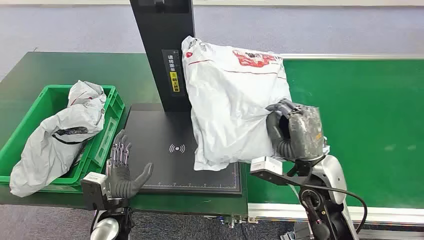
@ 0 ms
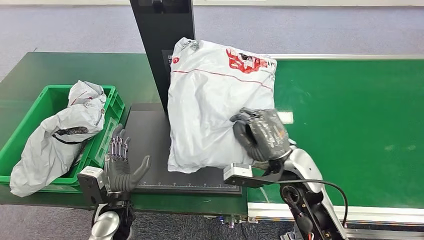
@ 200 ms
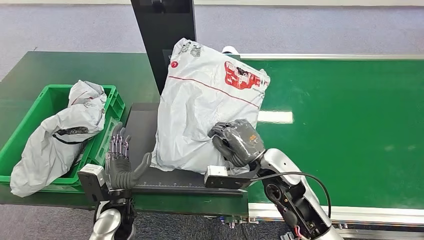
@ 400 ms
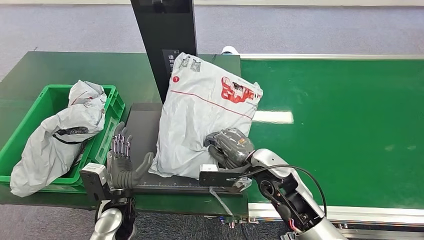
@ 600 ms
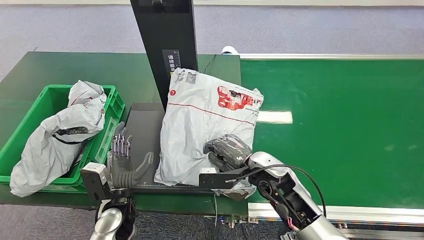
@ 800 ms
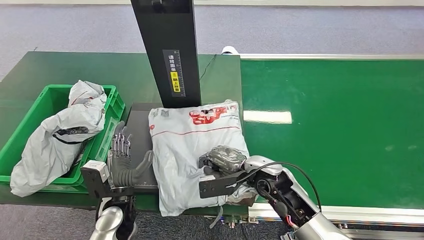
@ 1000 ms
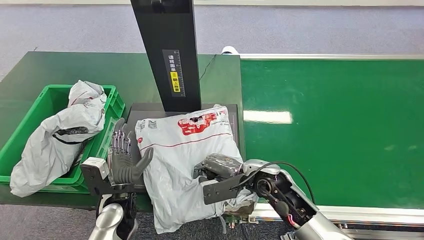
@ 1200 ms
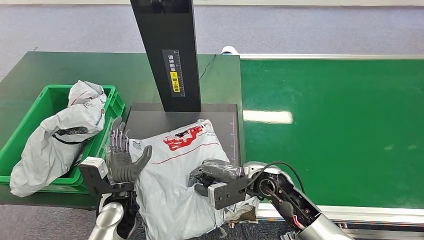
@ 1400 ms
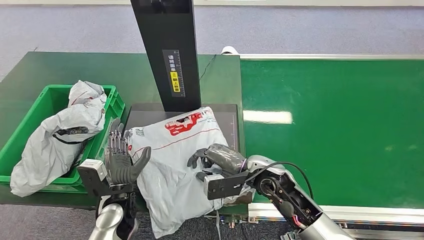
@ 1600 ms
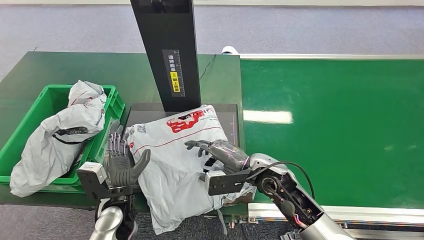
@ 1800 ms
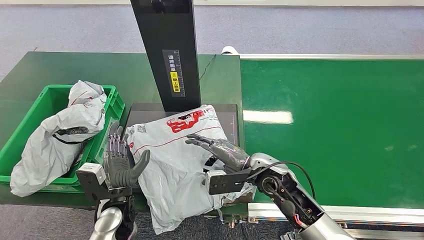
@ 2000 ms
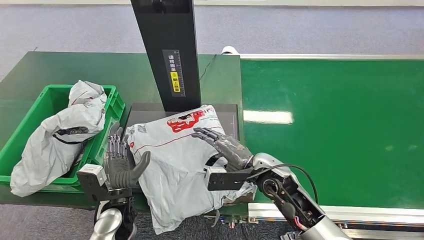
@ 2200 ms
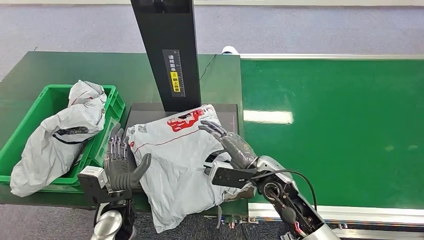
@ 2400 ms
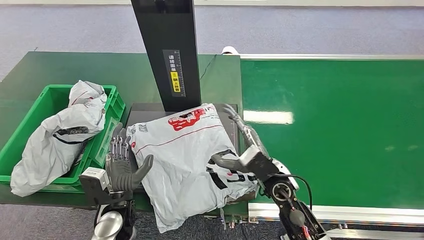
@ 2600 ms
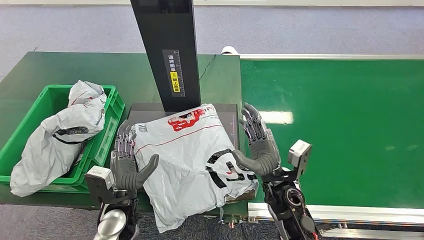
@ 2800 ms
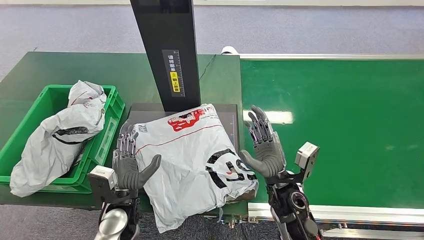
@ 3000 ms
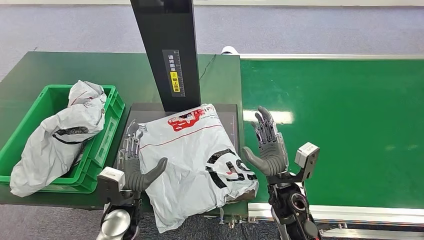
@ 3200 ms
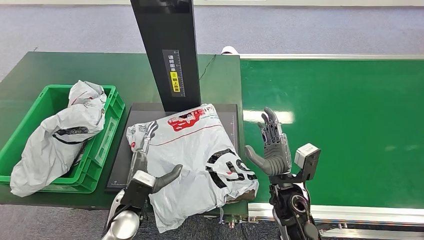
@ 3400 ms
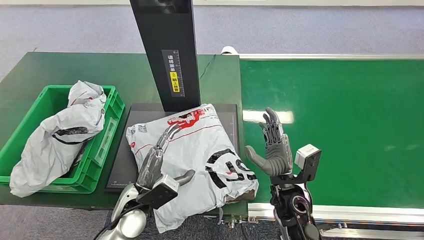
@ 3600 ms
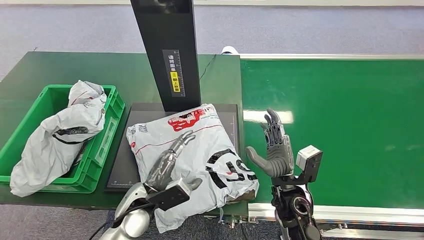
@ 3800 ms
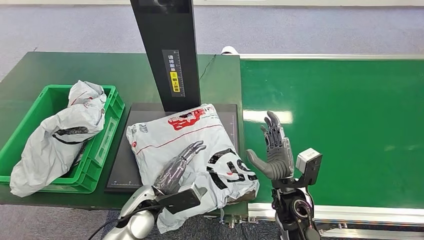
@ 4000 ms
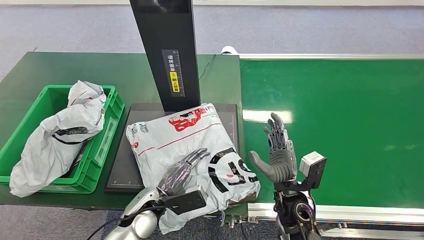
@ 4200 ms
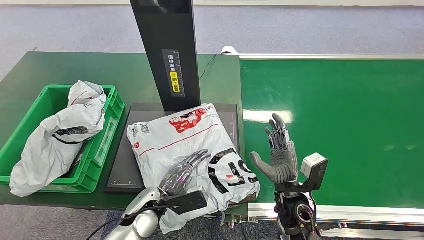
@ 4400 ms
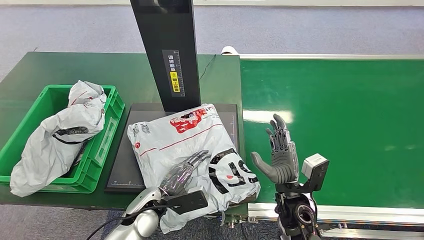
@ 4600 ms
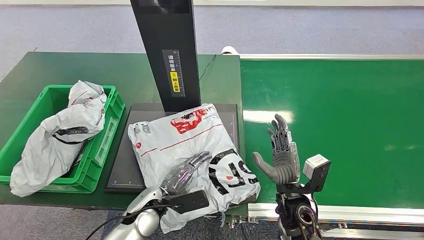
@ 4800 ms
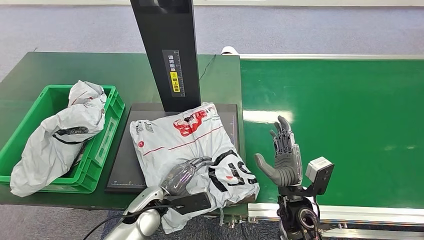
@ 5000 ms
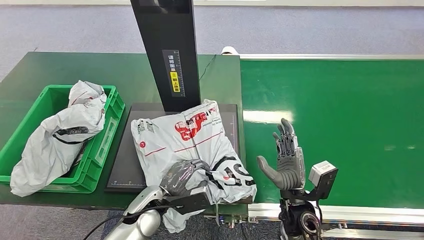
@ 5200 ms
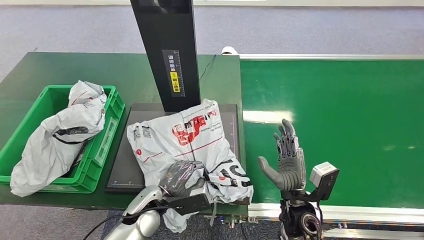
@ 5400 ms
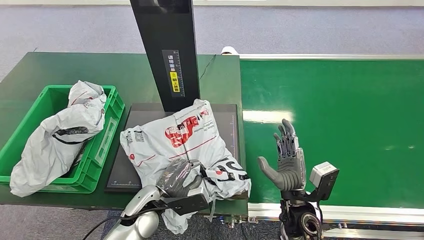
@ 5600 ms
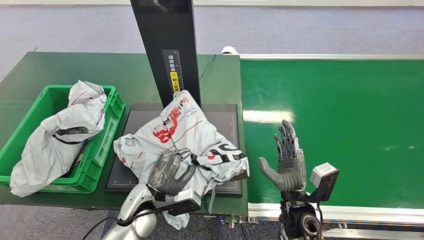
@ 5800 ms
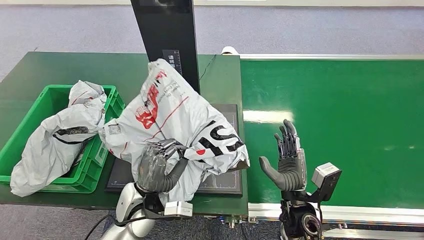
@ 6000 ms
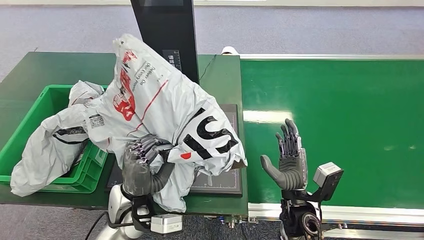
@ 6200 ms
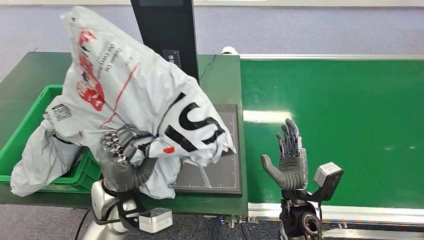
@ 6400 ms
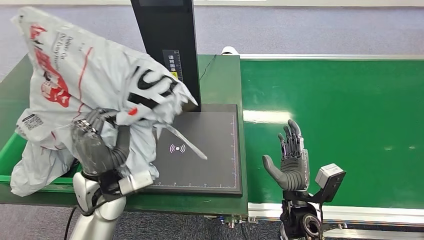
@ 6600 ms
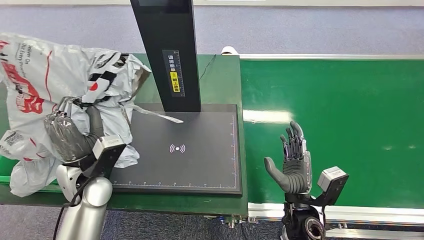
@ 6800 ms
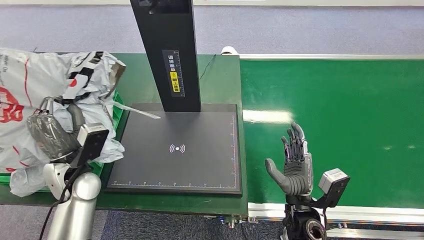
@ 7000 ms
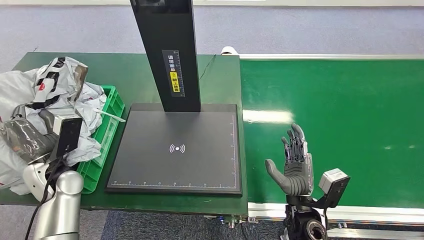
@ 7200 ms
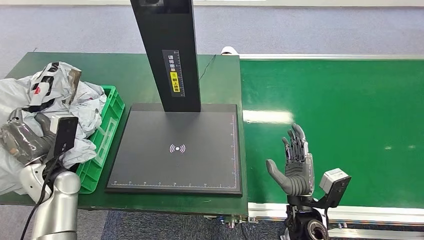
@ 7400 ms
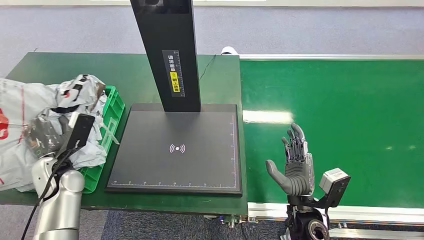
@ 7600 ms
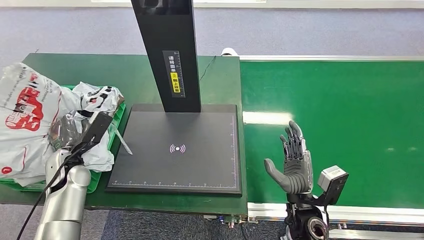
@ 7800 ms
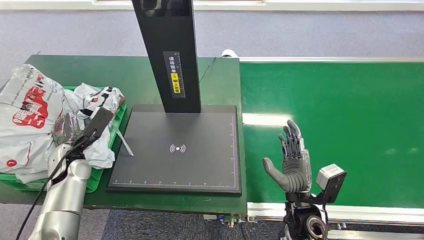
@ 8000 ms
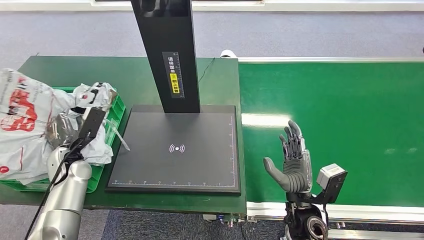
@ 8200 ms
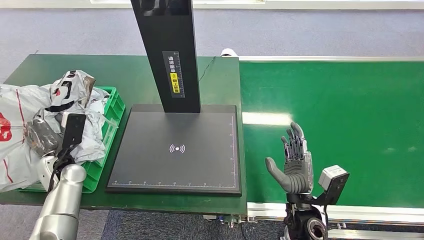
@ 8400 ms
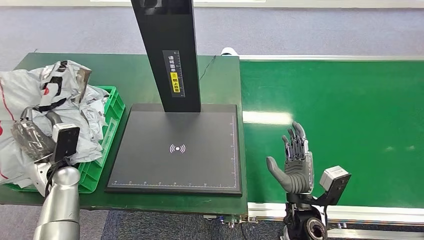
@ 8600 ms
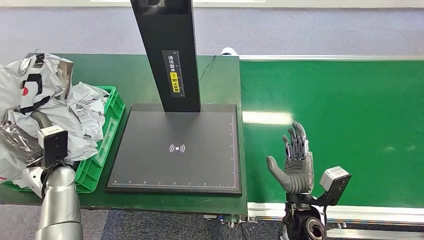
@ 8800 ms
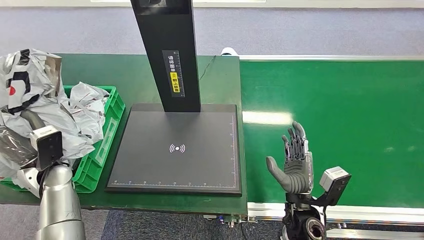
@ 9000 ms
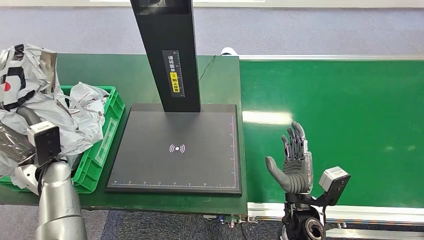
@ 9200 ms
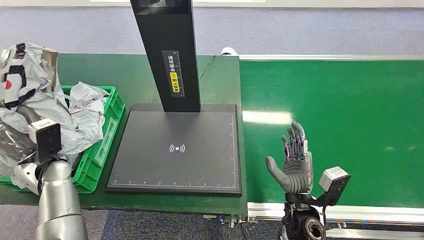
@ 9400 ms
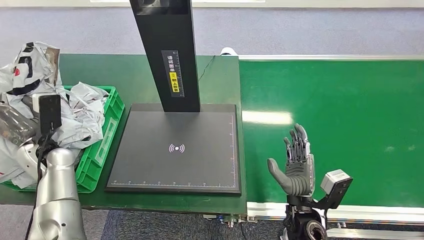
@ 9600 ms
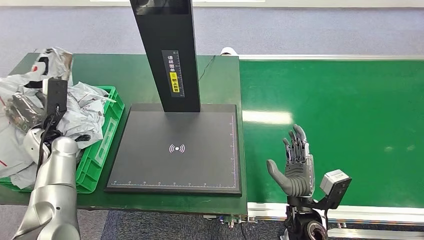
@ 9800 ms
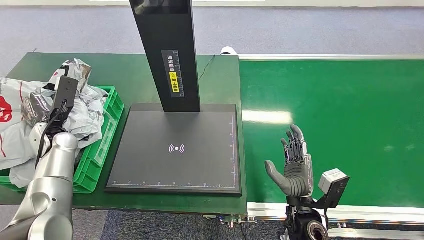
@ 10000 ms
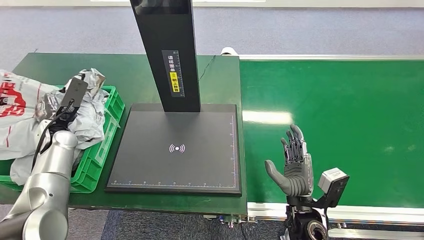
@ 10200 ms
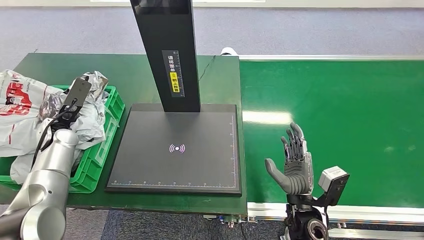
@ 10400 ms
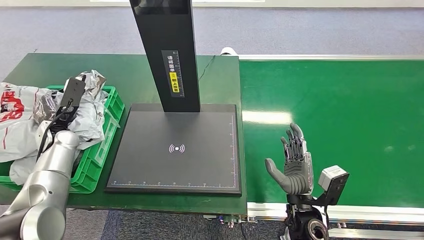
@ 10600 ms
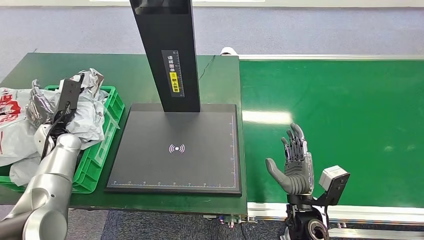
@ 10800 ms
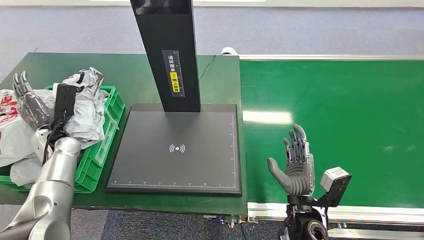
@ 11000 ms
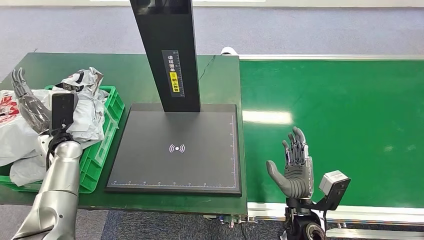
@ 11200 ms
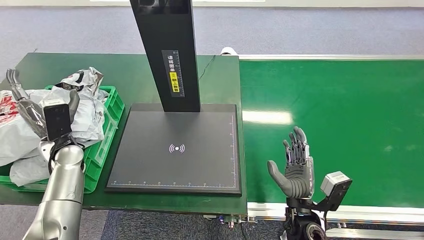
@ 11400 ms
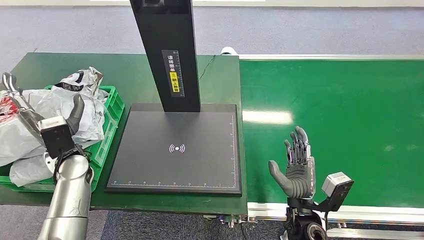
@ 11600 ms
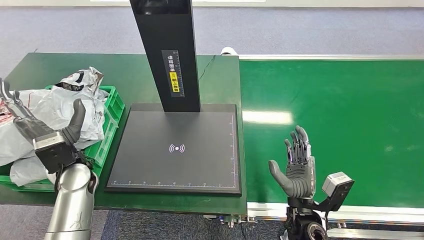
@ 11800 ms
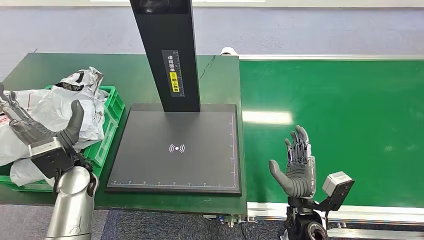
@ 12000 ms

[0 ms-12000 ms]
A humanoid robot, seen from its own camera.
Task of the whole recording: Weigh the package on the weighing device and place it in the left basket.
1600 ms to 3000 ms: The right hand moves approximately 5 cm.
9000 ms to 10400 ms: The left hand shifts approximately 10 cm forward.
10400 ms to 12000 ms: The left hand moves to the right and backward, approximately 15 cm.

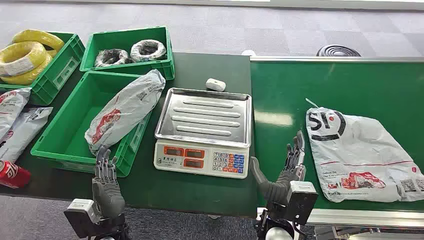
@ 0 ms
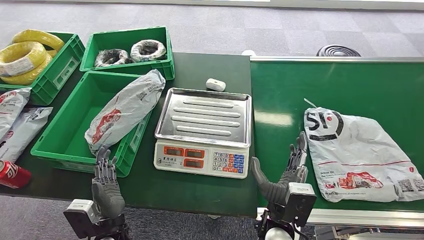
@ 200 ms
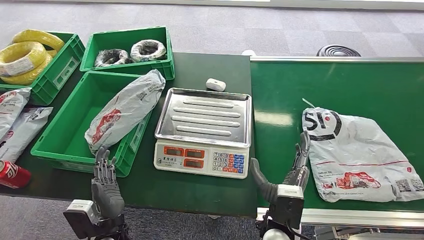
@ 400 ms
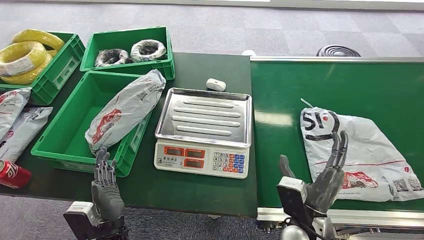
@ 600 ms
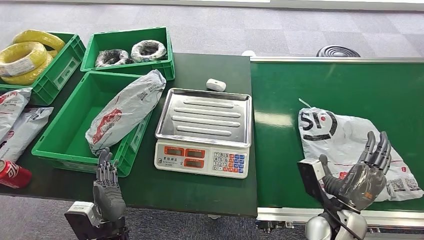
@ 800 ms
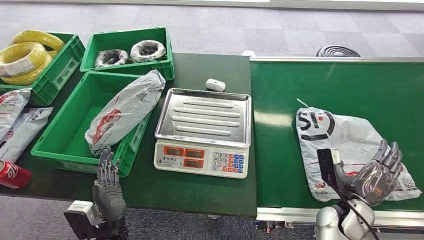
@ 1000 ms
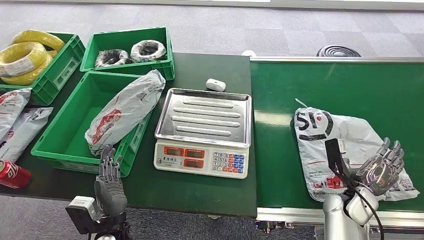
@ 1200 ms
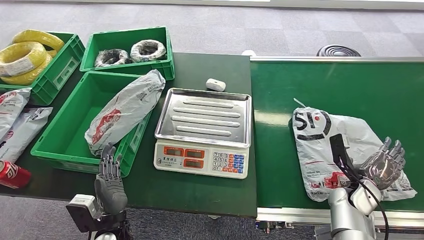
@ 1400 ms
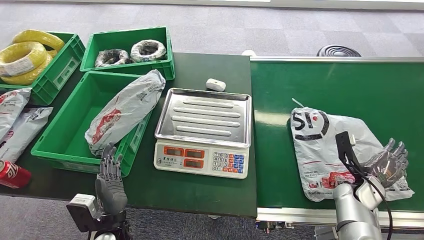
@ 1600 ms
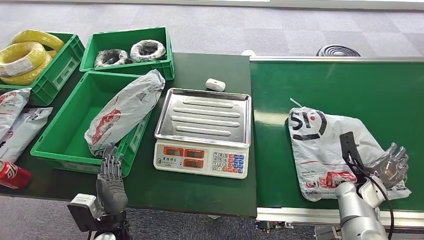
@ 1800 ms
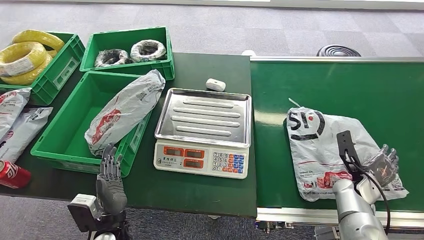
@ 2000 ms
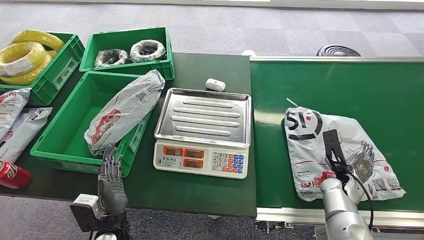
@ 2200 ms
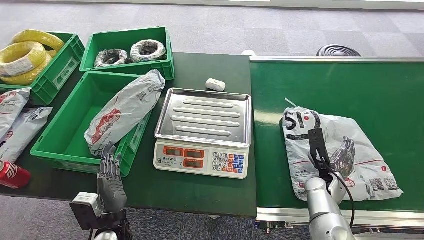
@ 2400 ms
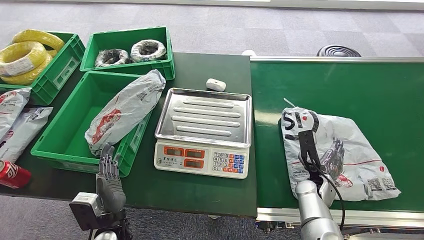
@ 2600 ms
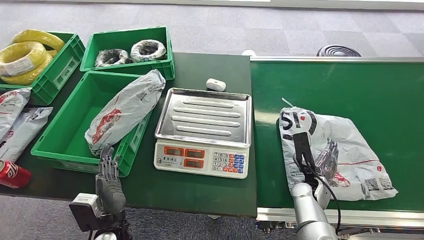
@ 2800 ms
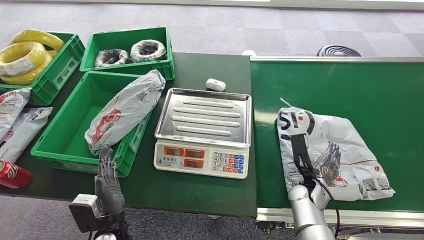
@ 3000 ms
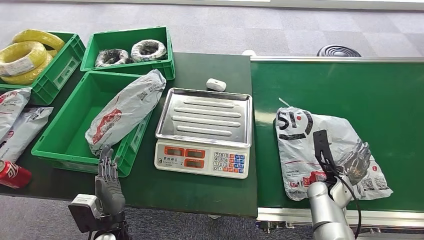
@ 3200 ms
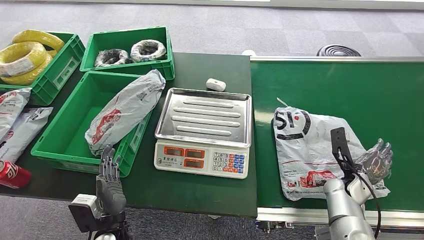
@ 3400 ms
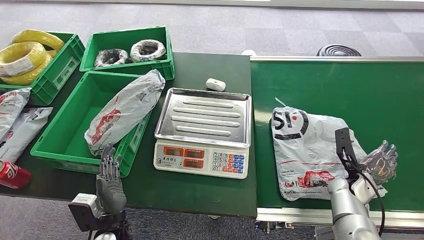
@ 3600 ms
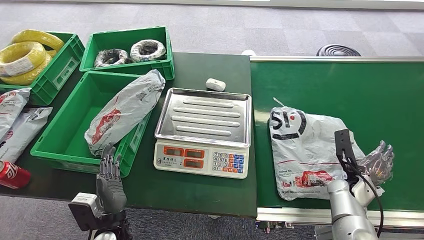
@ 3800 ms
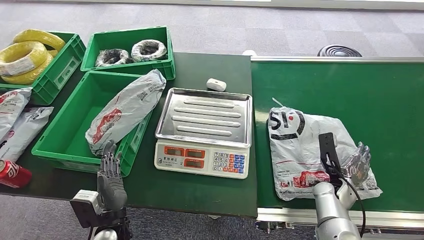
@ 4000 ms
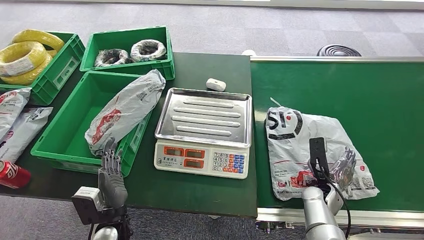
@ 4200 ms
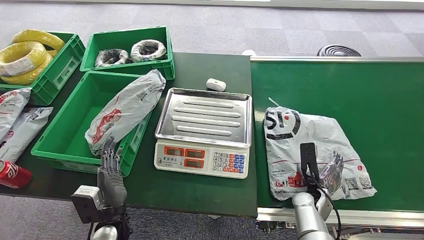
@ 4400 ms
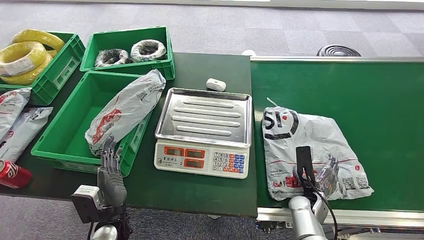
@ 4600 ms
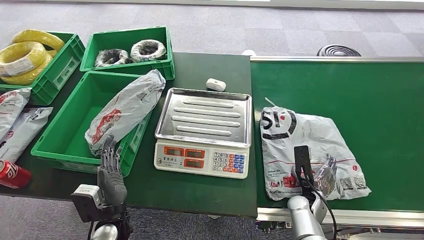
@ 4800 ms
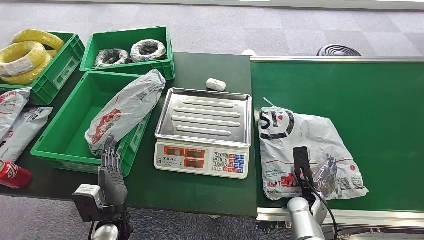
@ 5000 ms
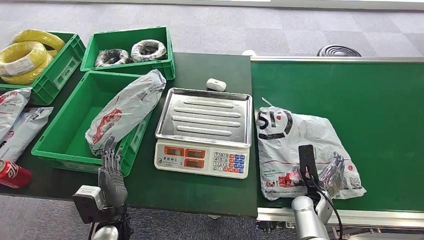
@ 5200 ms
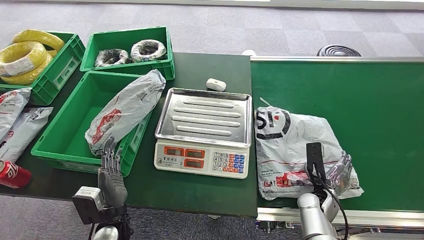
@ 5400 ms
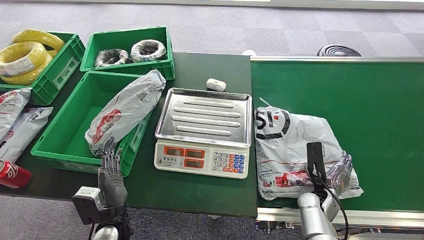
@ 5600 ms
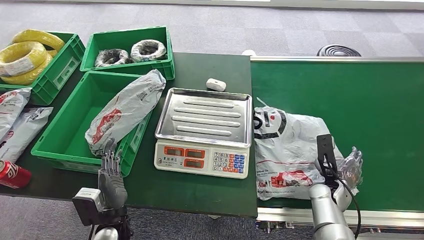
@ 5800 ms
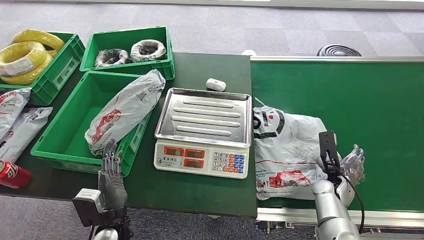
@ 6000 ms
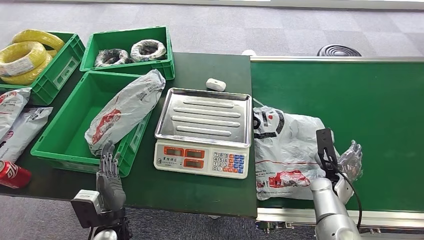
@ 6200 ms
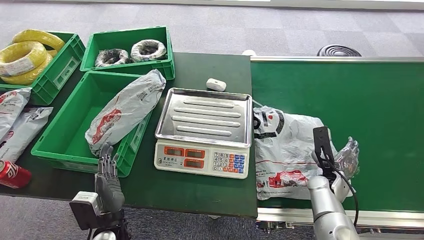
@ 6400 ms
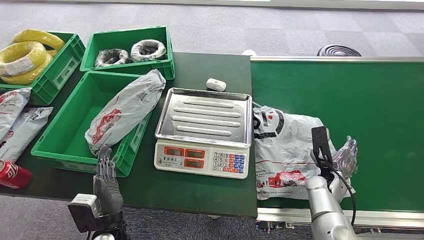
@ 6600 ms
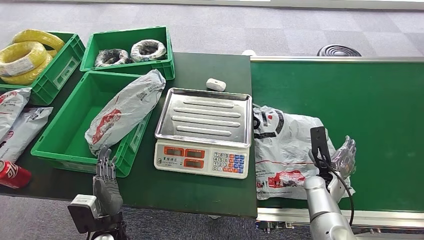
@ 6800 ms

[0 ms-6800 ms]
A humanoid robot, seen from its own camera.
Task of the whole recording: Weigh the package on the weighing device and place it in the left basket.
1400 ms to 2800 ms: The right hand goes some 10 cm to the left.
2800 ms to 4000 ms: The right hand moves to the right, some 5 cm.
4000 ms to 5400 ms: The right hand shifts about 5 cm to the left.
5400 ms to 6800 ms: The right hand moves roughly 5 cm.
